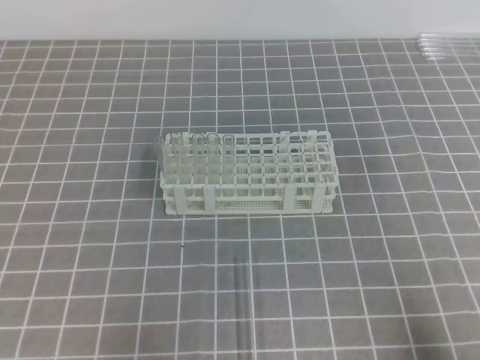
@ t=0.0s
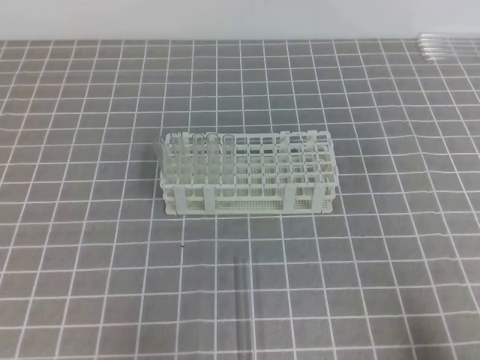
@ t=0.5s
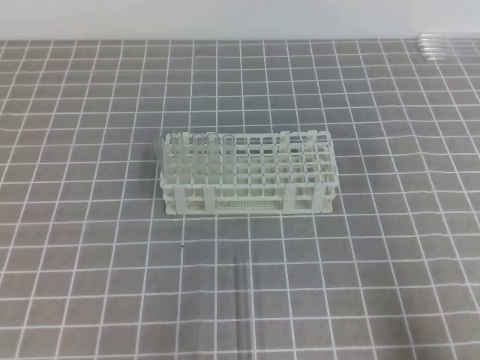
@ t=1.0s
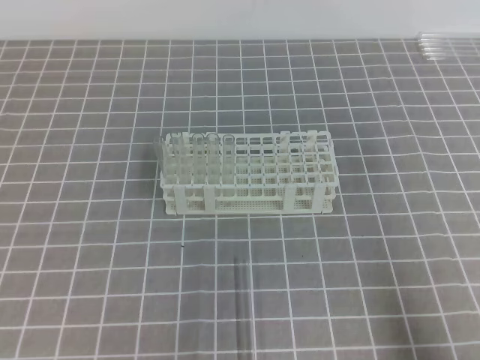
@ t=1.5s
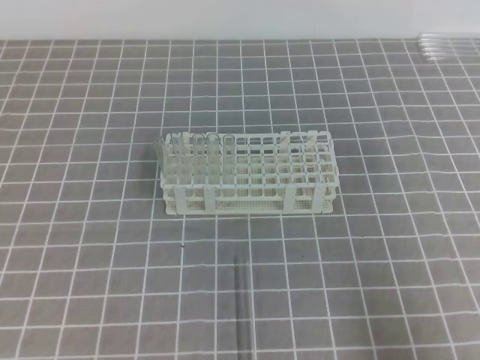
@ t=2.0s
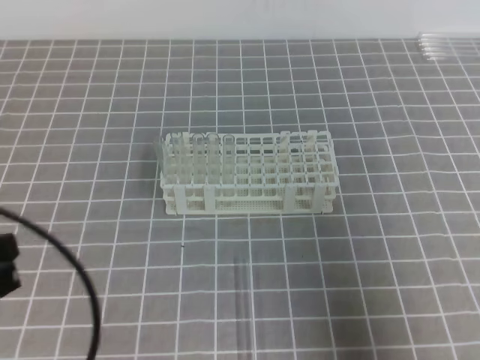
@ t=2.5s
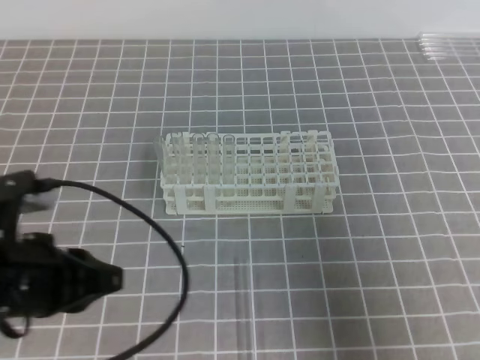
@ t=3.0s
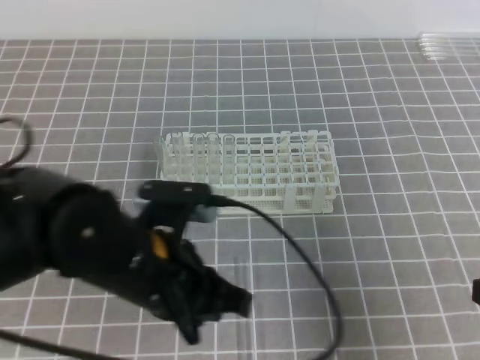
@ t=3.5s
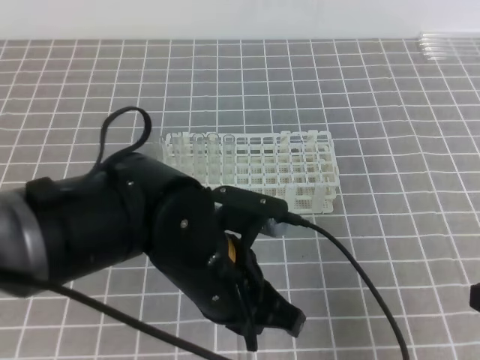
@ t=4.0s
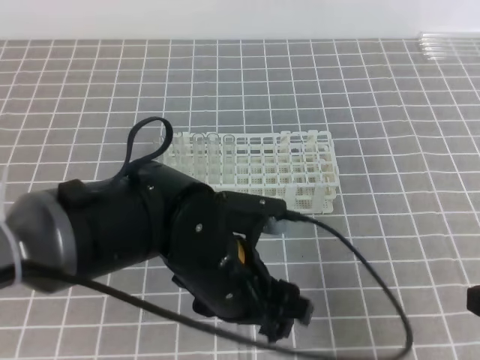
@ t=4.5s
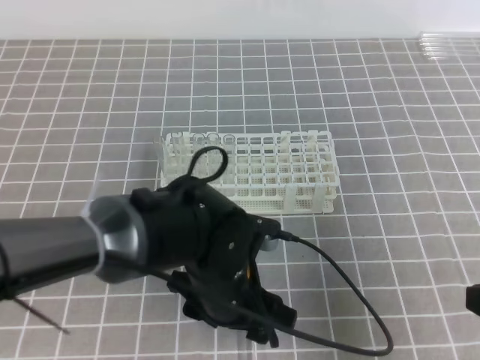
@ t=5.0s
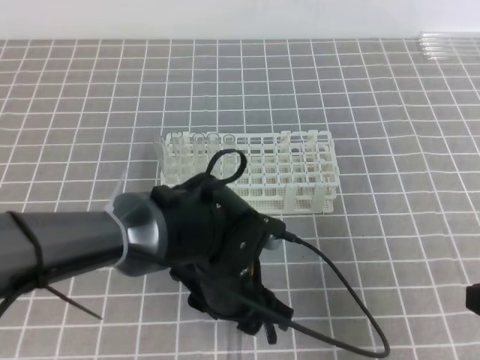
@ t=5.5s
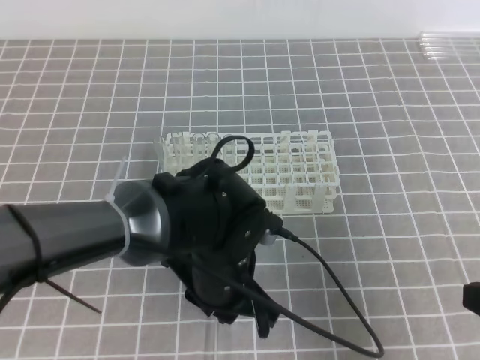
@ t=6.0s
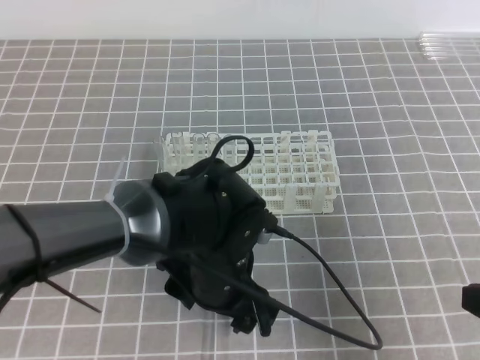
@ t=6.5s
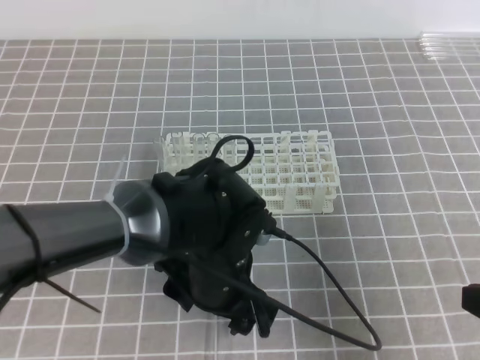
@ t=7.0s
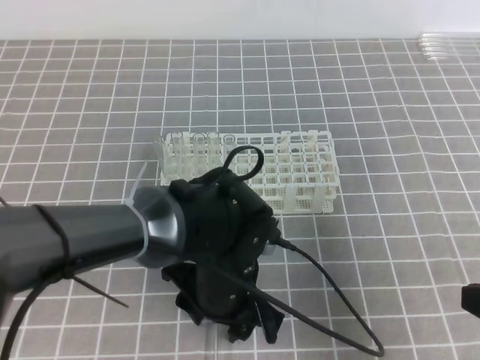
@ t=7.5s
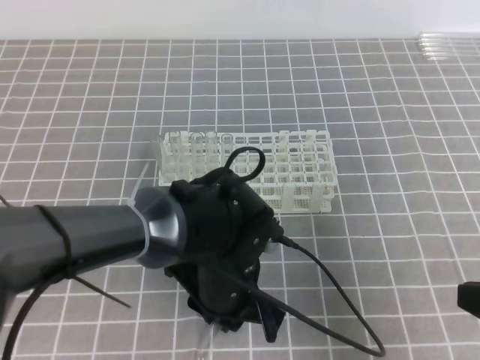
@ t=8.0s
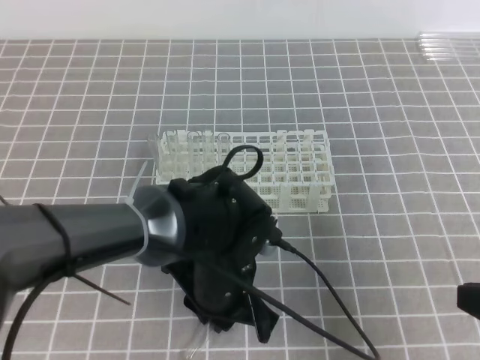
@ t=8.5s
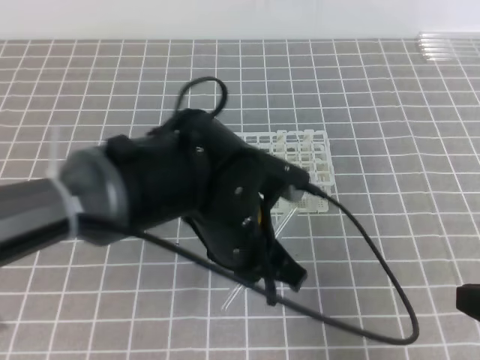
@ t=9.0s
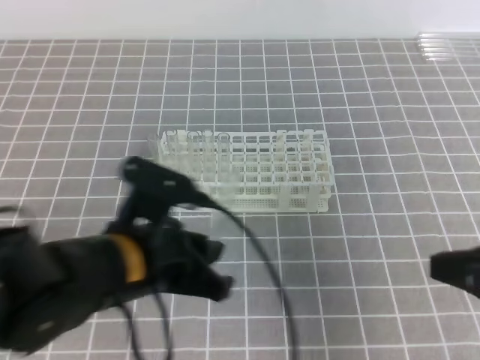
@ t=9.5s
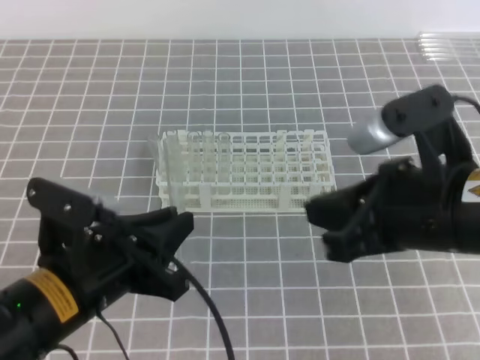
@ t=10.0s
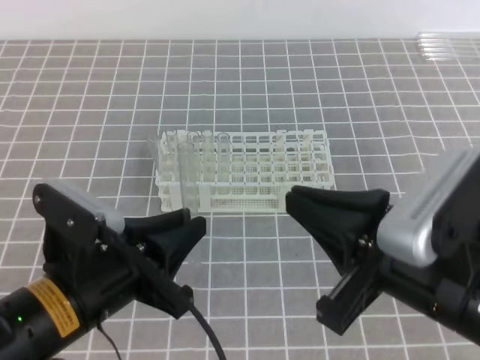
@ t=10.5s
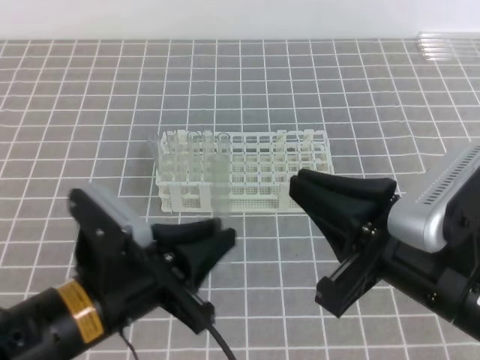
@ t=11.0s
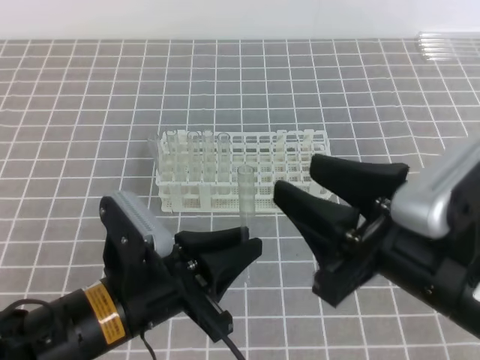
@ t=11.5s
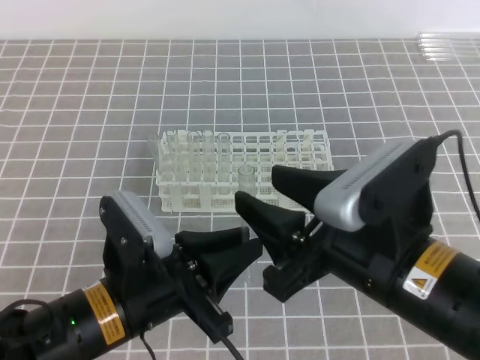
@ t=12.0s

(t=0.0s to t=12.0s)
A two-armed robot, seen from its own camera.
t=2.0s - t=4.0s: The left gripper heads to the right and forward, covering some 25 cm. Meanwhile the right gripper moves forward, about 5 cm.
t=4.0s - t=6.0s: The left gripper is displaced downward by about 5 cm, and opens and closes again.
t=6.0s - t=8.0s: The left gripper opens, then closes again.
t=8.0s - t=10.0s: The right gripper travels to the left, forward and upward by about 15 cm; the left gripper heads to the left, upward and backward, covering about 15 cm.
t=10.0s - t=12.0s: The right gripper shifts approximately 5 cm to the left, and opens its fingers.

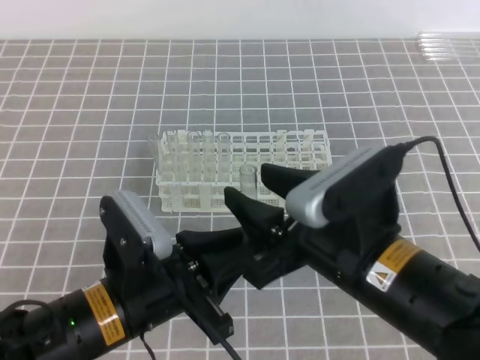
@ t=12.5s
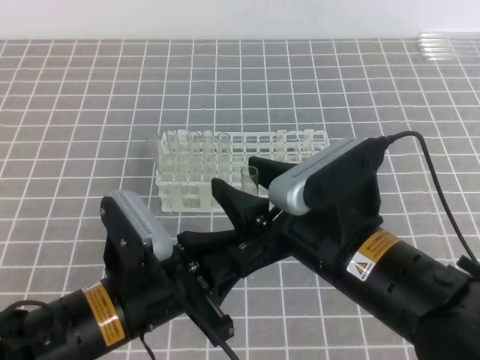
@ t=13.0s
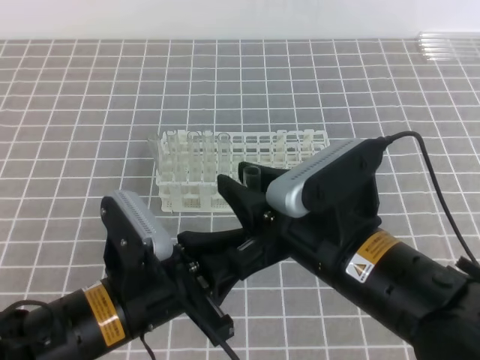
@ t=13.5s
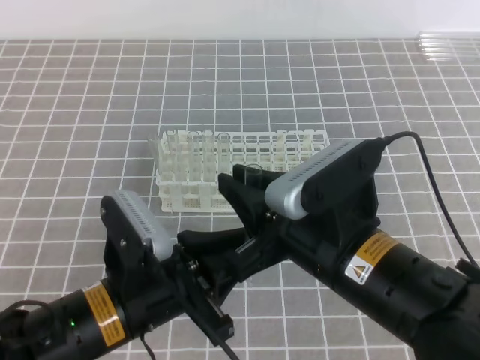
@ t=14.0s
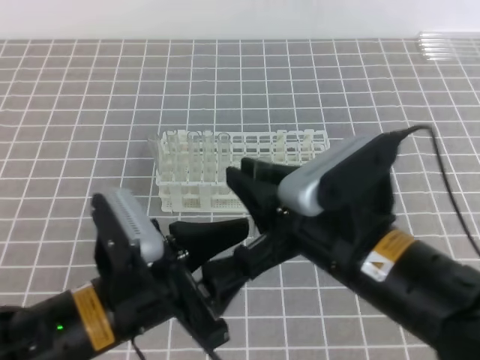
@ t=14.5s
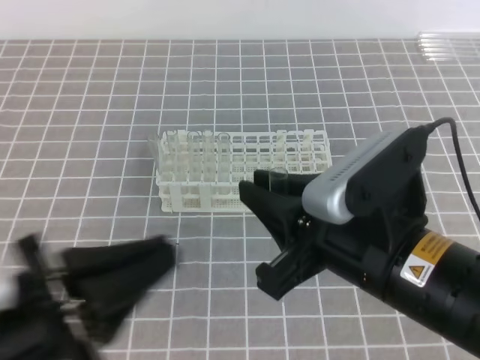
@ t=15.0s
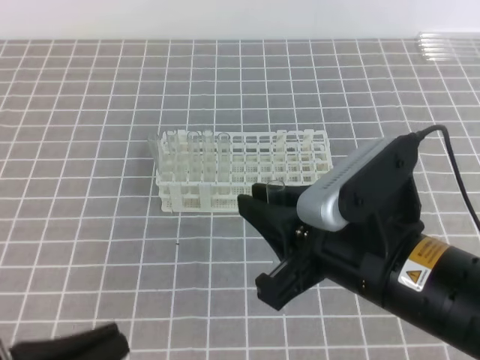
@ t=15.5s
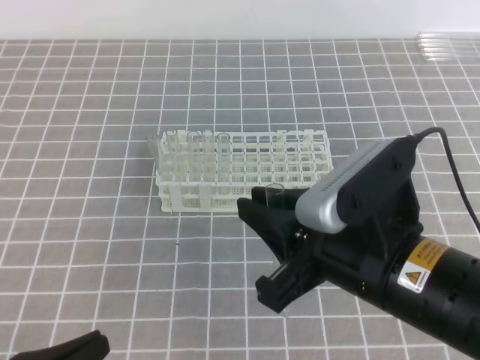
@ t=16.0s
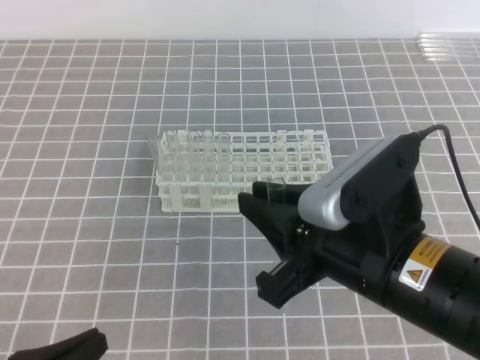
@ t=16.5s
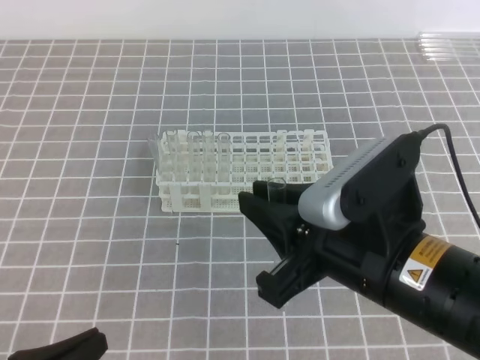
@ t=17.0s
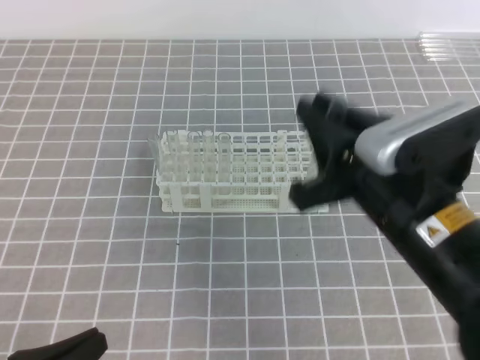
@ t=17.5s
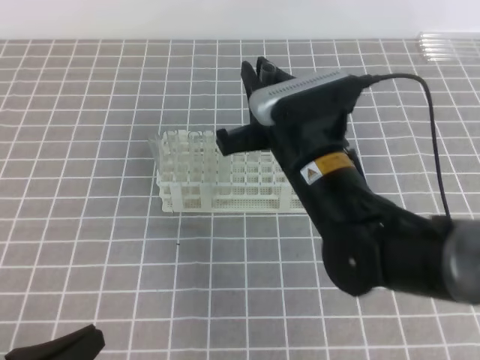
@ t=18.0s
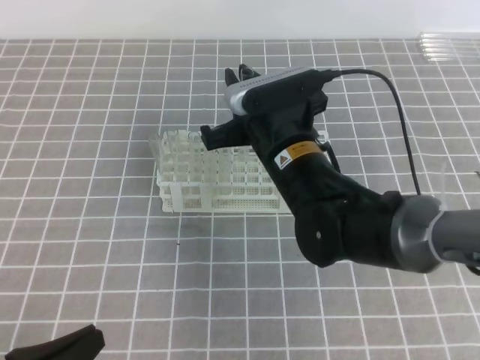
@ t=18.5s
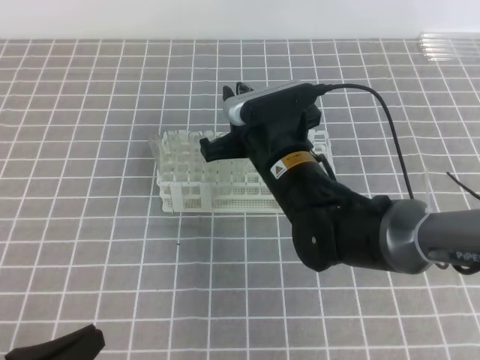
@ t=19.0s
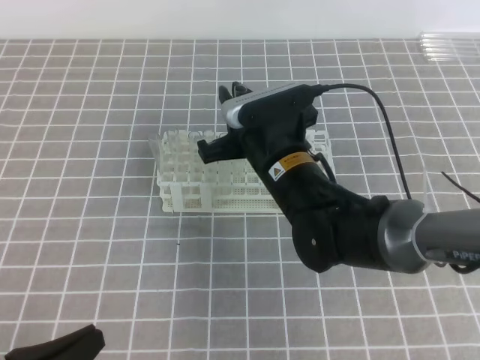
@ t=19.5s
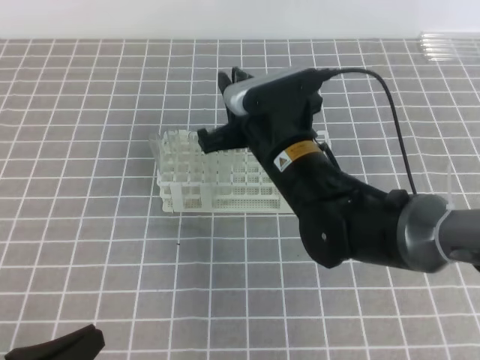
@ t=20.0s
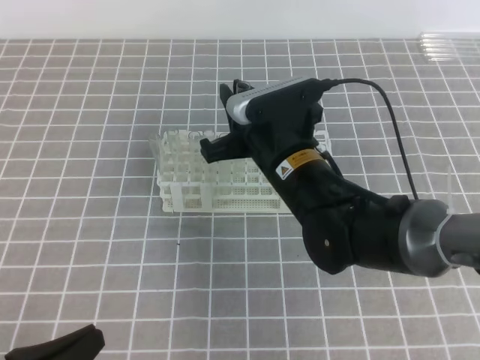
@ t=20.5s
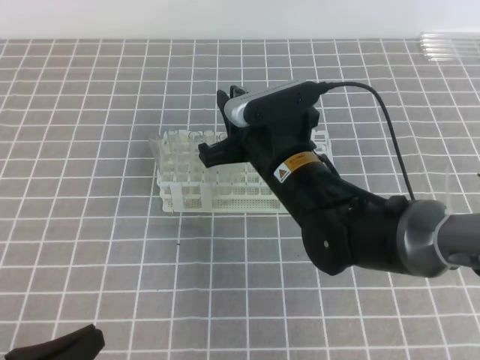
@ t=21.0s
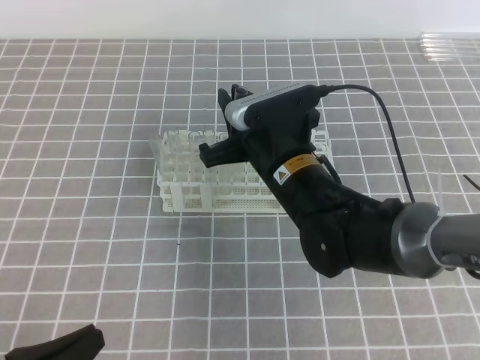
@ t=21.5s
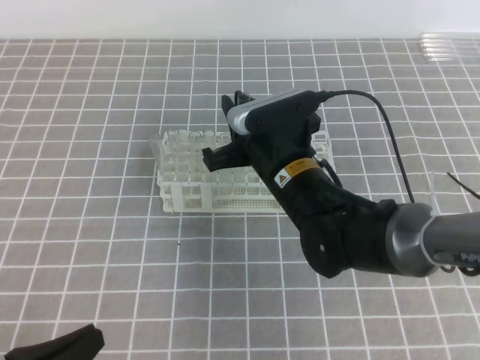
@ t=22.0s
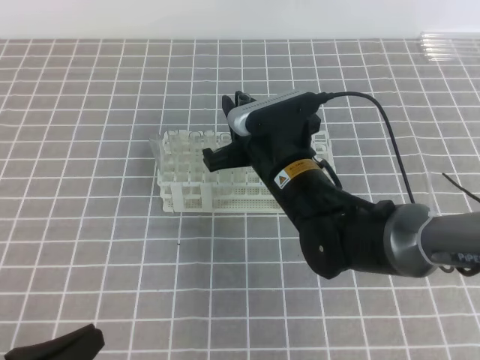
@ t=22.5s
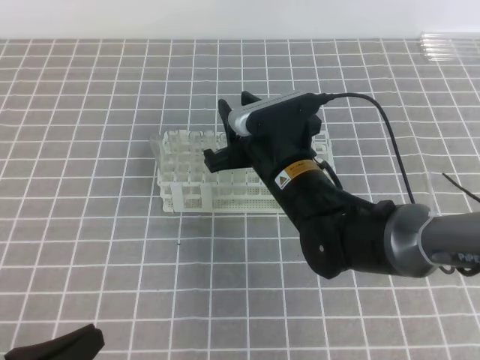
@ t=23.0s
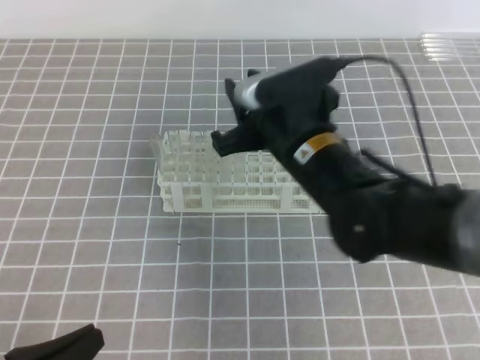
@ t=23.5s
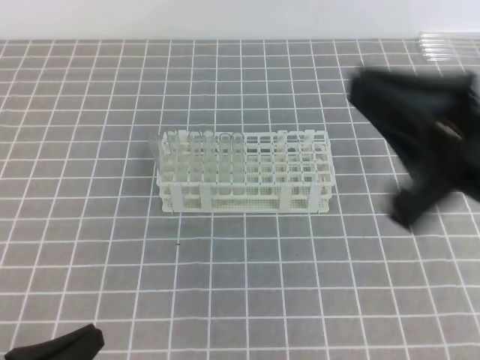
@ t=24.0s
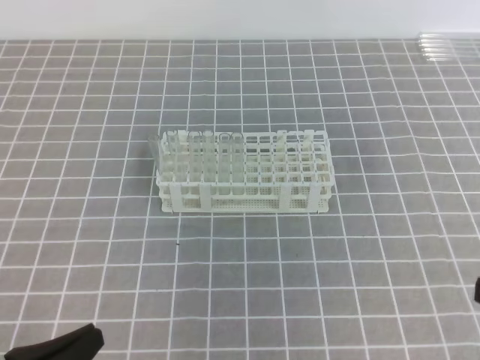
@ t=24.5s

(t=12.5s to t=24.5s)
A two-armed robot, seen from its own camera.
t=12.5s - t=14.5s: The right gripper closes, while the left gripper opens its fingers.
t=14.5s - t=16.5s: The left gripper moves to the left and backward, some 15 cm, and closes.
t=16.5s - t=18.5s: The right gripper is displaced forward and to the left by roughly 20 cm.
t=18.5s - t=22.5s: There are only small adjustments of the grippers.
t=22.5s - t=24.5s: The right gripper goes some 35 cm backward, to the right and upward, and opens and closes again.

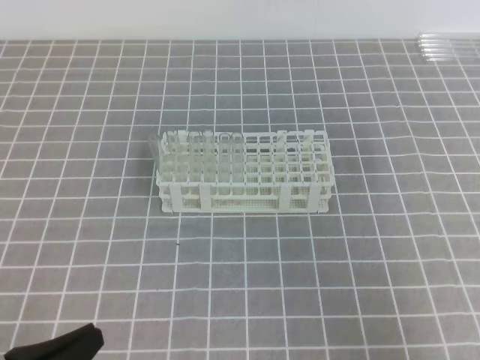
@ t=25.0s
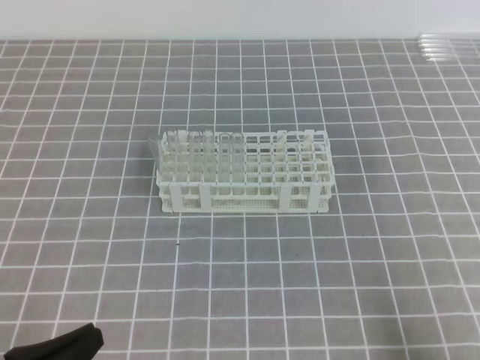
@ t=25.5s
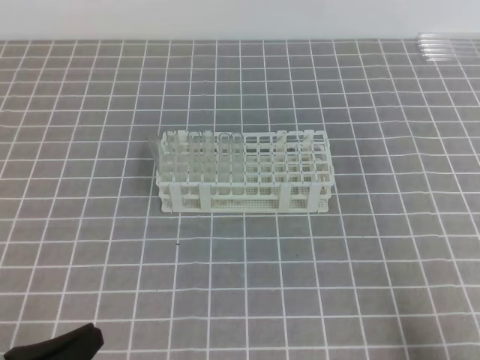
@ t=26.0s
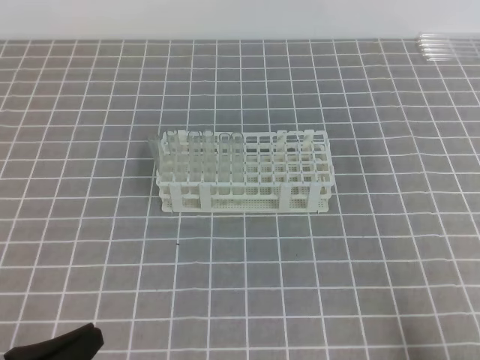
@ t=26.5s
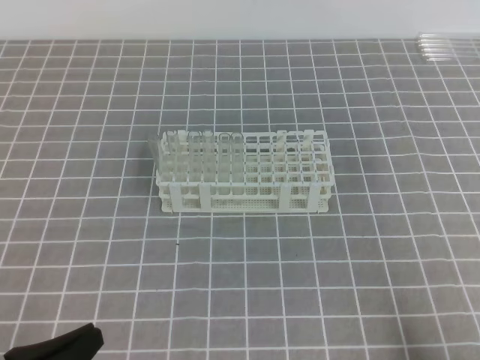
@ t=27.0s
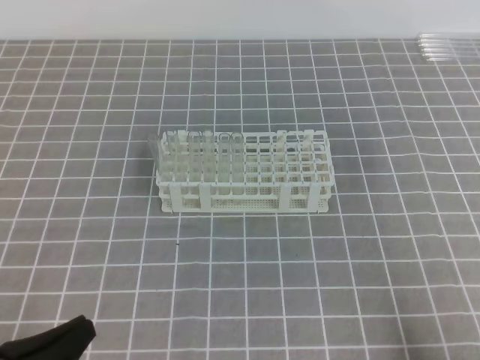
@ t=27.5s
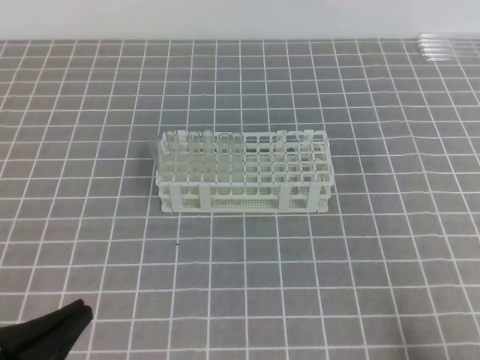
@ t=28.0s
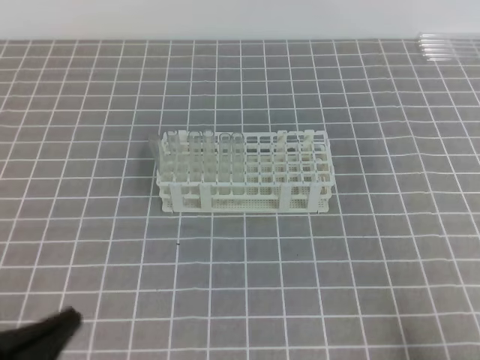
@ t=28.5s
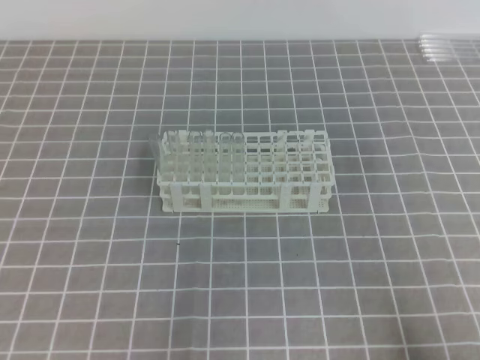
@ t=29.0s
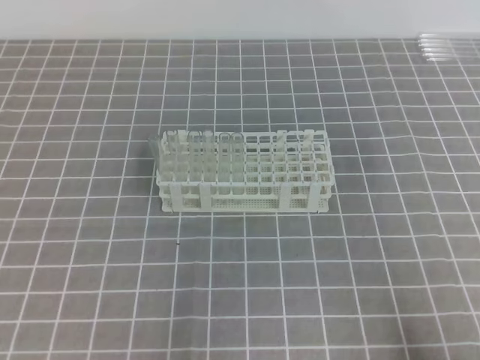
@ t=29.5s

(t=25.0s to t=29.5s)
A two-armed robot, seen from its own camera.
t=25.0s - t=27.0s: The right gripper travels downward by about 10 cm.
